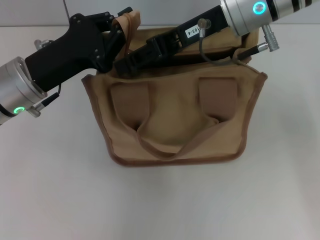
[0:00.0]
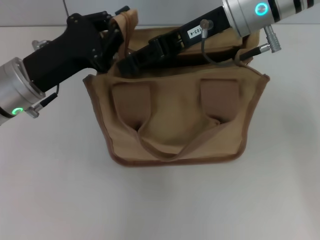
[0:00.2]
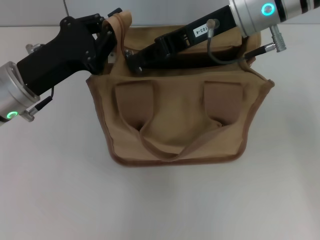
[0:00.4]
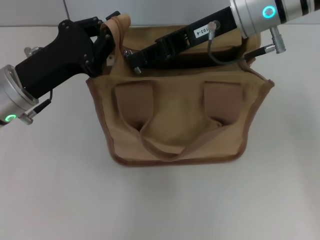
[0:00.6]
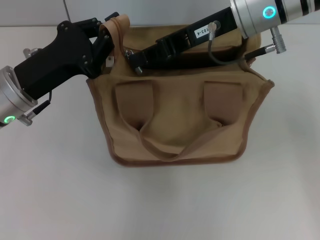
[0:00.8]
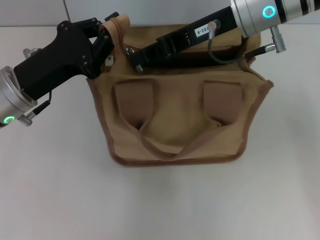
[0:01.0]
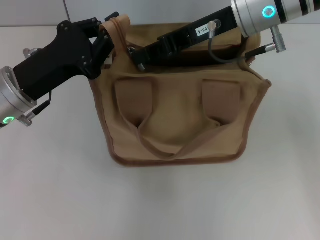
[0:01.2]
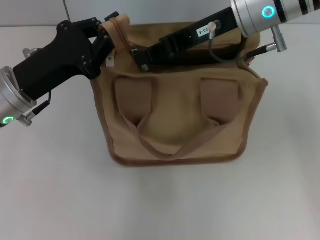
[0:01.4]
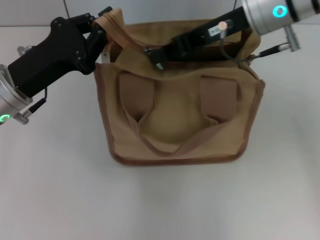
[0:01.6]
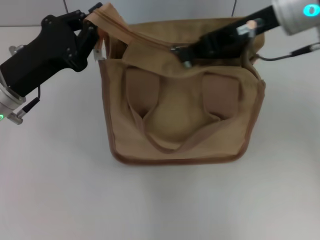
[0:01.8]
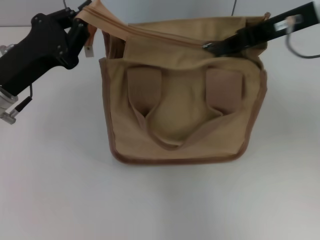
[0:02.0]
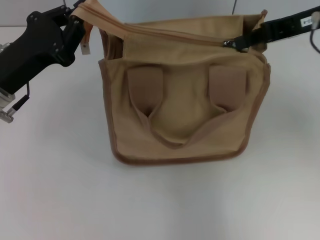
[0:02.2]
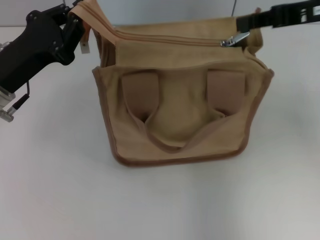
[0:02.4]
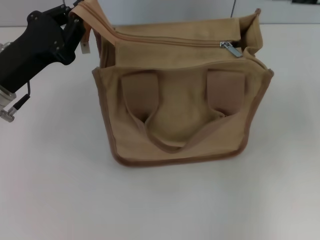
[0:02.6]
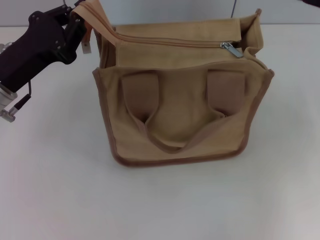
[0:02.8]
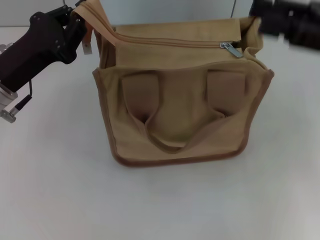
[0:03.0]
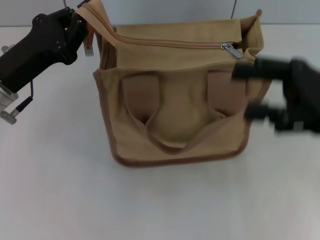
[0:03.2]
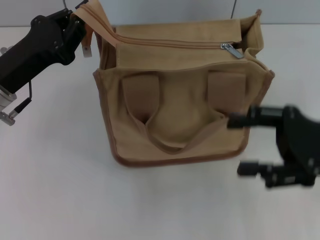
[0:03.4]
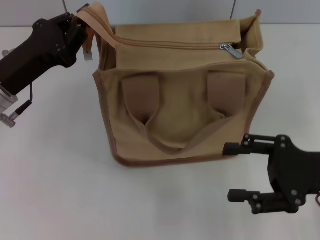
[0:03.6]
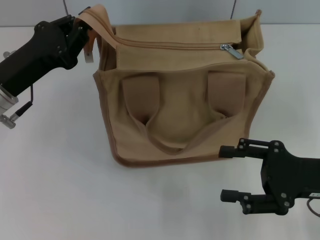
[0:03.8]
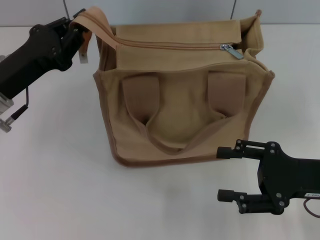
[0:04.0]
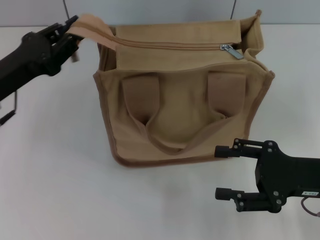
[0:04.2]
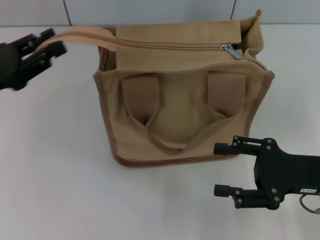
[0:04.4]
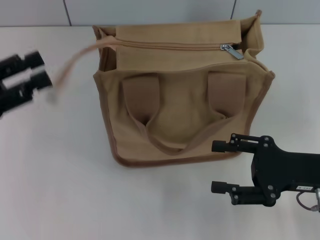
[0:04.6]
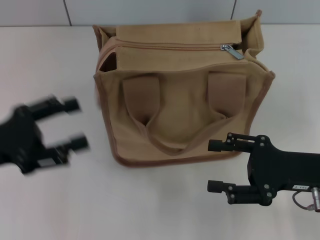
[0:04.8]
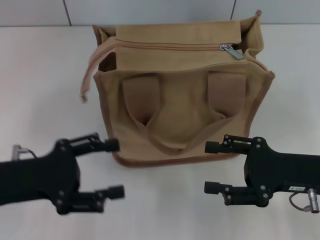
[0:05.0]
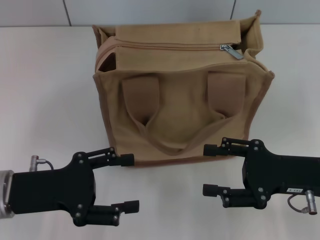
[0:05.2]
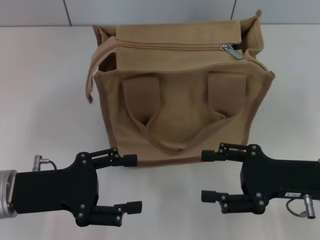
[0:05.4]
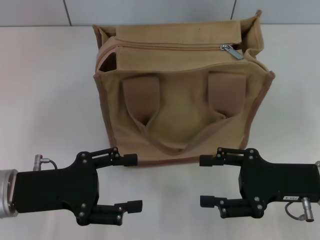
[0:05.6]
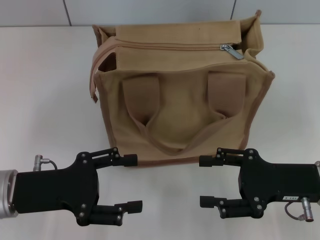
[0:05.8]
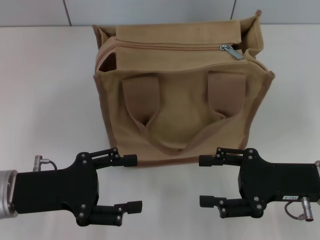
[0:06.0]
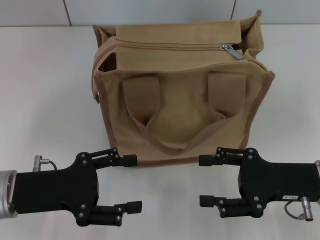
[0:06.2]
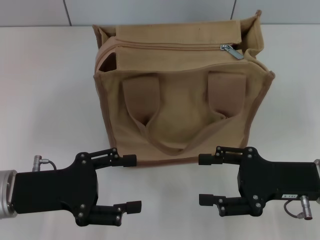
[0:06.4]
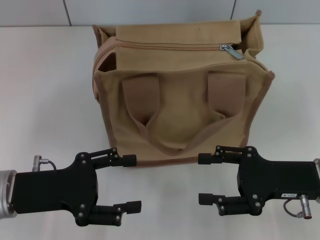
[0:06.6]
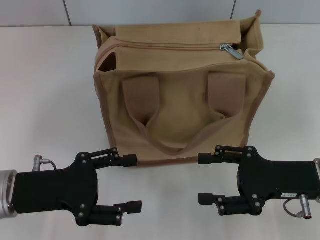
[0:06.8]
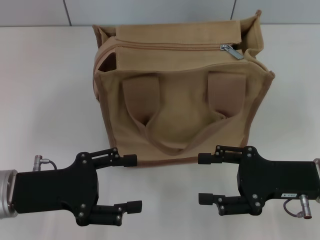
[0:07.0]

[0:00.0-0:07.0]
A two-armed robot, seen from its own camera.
Step, 0:00.0 to 0:02.4: Pull up the zipper with your right hand.
Step, 0:02.6 to 0:04.4: Grab the zipper with your left hand.
0:00.0 to 0:01.4: The right gripper closes.
0:01.4 to 0:02.8: The right gripper goes about 20 cm to the right and backward.
0:02.8 to 0:04.2: The right gripper shifts approximately 20 cm downward and backward, and opens its fingers.
0:04.2 to 0:05.6: The left gripper shifts roughly 10 cm backward, travels to the left and back again, approximately 5 cm each way, and opens its fingers.
0:05.6 to 0:07.0: Both grippers stay put.

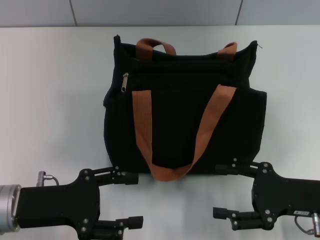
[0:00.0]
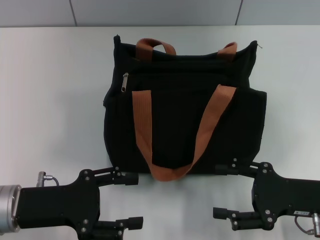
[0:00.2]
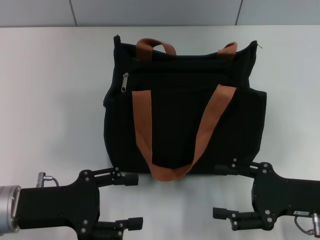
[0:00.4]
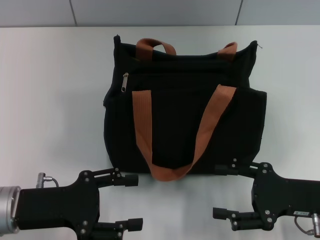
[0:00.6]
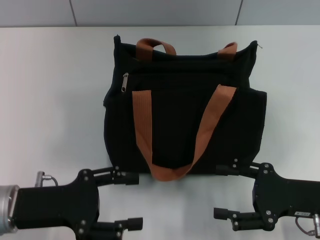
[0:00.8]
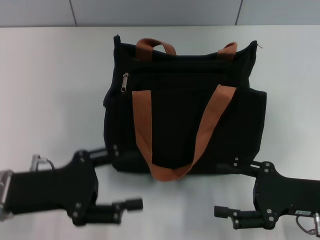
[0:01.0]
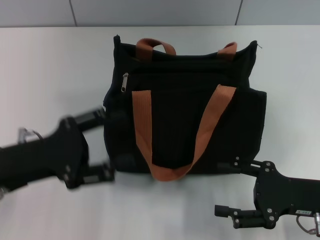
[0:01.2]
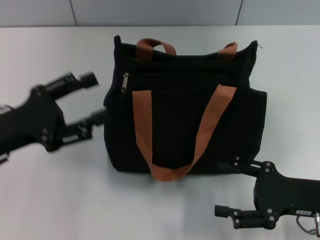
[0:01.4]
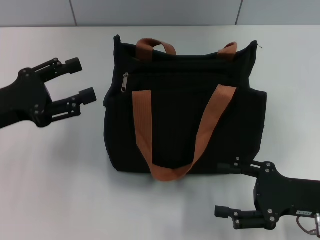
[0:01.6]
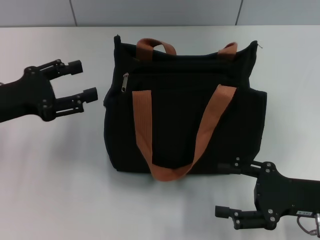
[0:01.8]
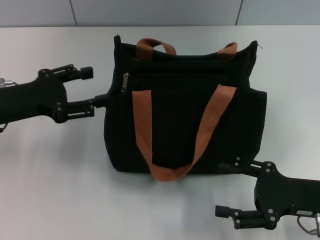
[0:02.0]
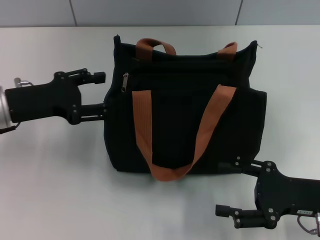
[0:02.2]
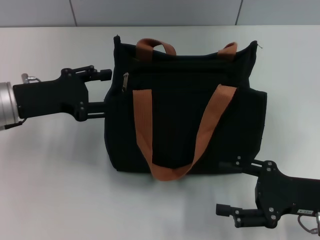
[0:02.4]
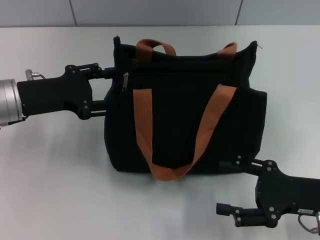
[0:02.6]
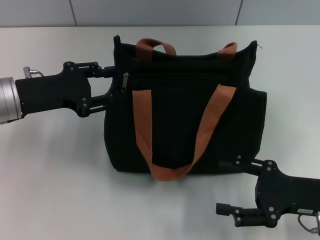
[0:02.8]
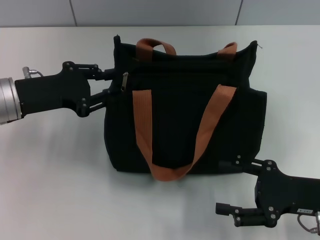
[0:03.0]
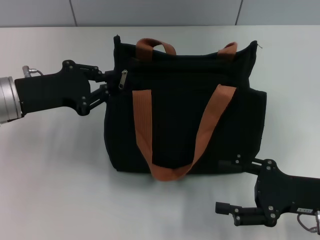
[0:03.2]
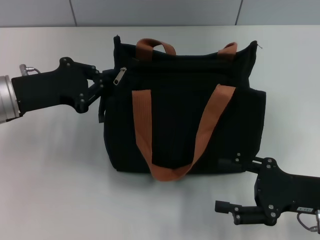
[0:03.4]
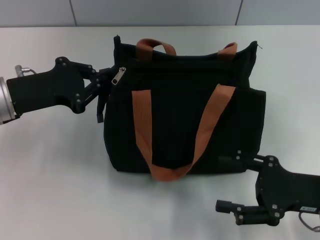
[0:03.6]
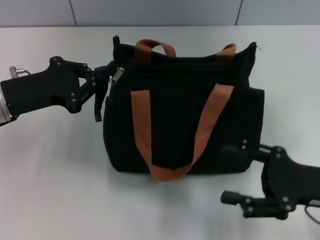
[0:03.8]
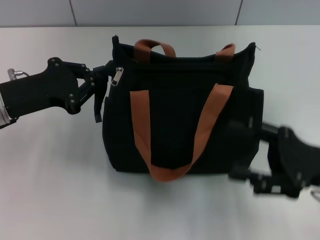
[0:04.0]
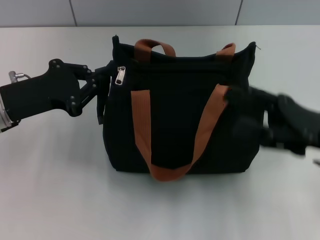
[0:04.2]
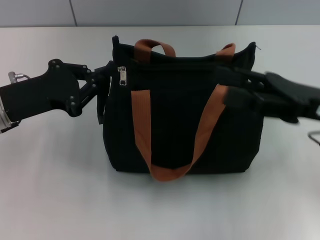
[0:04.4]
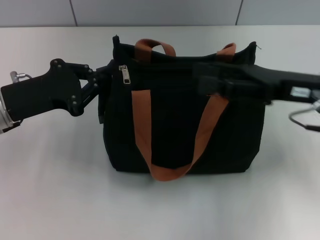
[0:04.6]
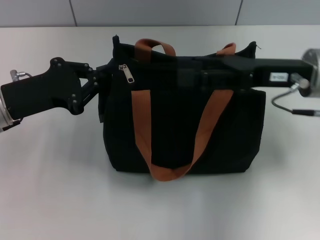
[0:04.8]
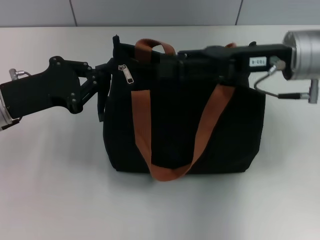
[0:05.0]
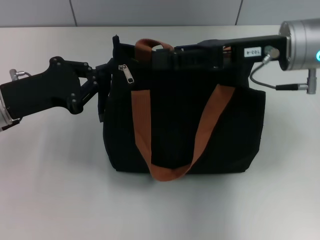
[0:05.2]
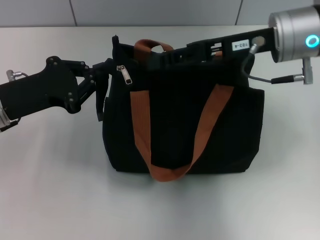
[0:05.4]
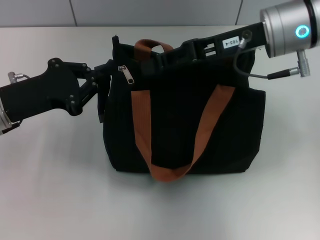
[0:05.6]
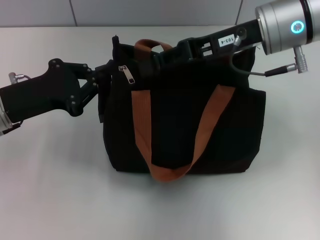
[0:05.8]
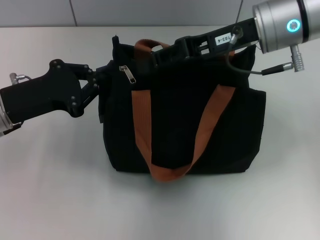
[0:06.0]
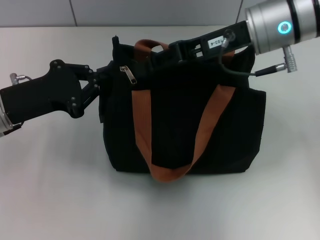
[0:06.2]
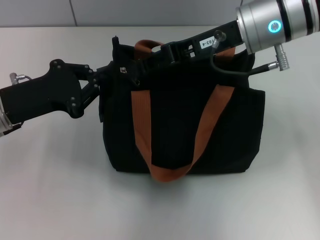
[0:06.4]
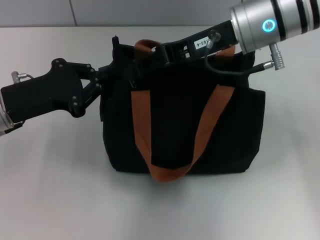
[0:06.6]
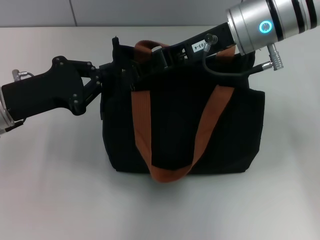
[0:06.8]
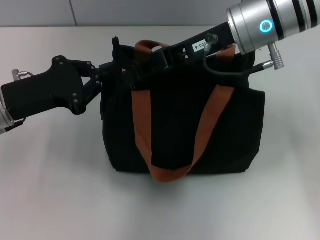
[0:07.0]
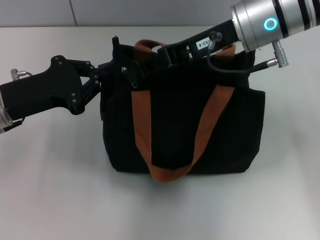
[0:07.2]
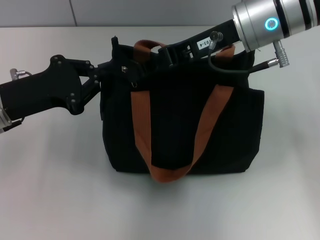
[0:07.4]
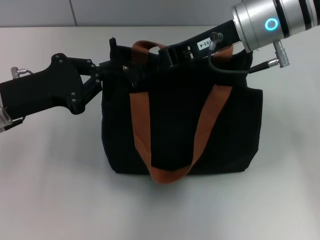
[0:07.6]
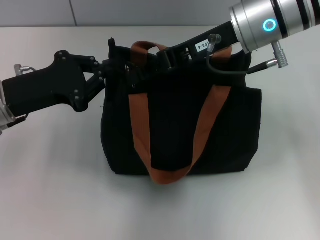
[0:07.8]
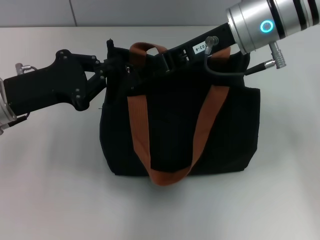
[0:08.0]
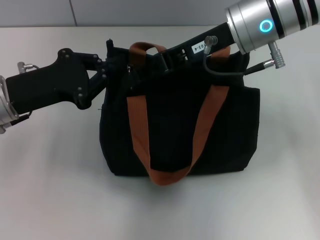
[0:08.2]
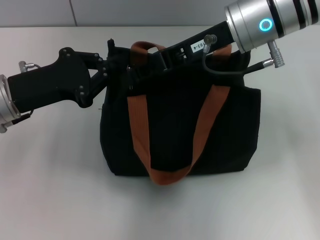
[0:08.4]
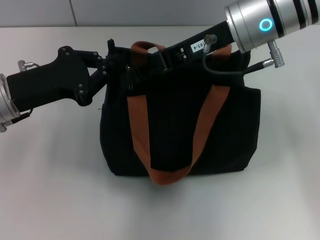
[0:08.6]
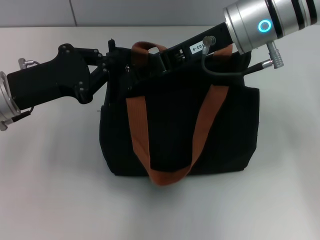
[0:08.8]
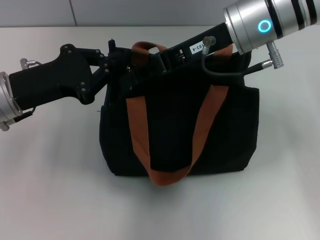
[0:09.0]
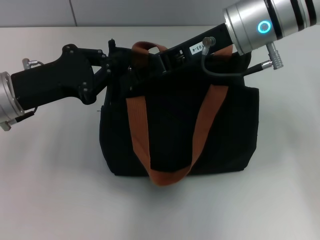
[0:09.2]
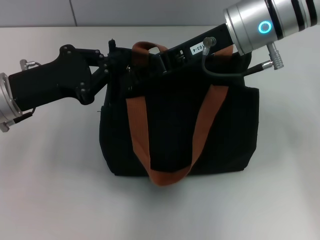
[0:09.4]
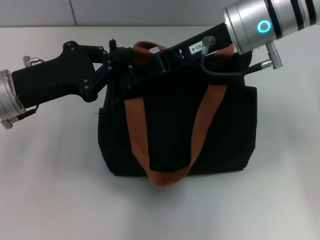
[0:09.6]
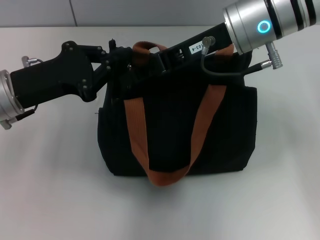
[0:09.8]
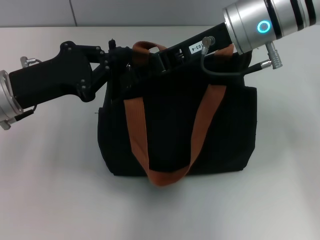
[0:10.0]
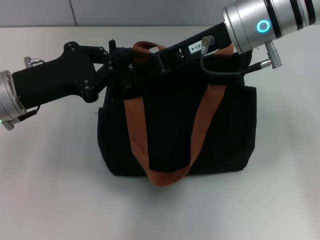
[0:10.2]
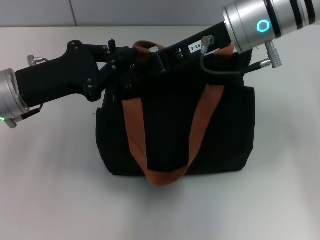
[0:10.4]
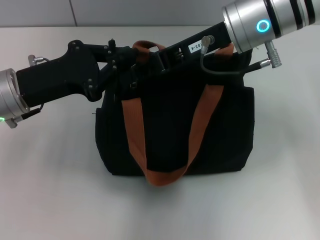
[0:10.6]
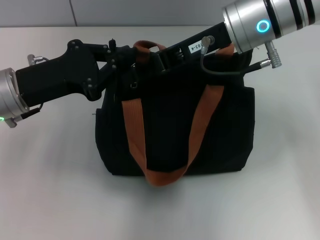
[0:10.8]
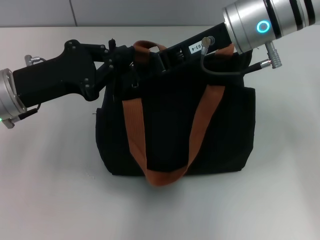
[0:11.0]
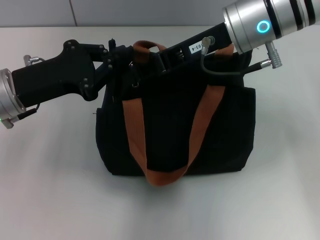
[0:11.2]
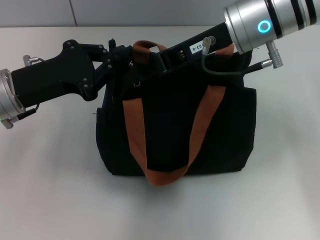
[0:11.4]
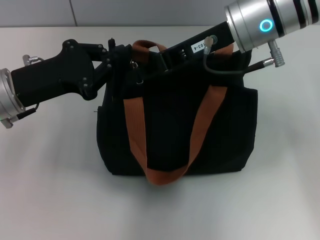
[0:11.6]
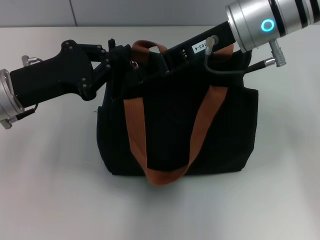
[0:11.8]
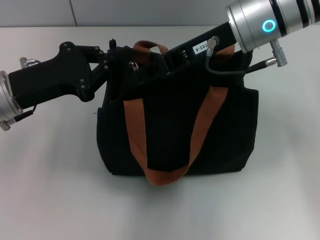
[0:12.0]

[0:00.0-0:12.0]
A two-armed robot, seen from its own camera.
0:00.0 to 0:01.6: The left gripper goes some 10 cm forward and upward.
0:01.6 to 0:03.0: The left gripper heads forward, covering about 5 cm.
0:03.0 to 0:04.4: The left gripper closes its fingers, while the right gripper travels upward and forward by roughly 10 cm.
0:04.4 to 0:06.0: The right gripper heads to the left, forward and upward, covering about 15 cm, and closes its fingers.
0:06.0 to 0:09.0: There are only small adjustments of the grippers.
0:09.0 to 0:12.0: Both grippers stay about where they are.

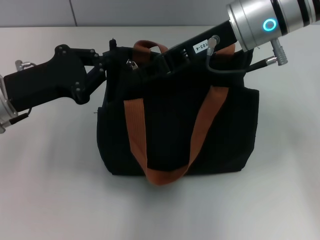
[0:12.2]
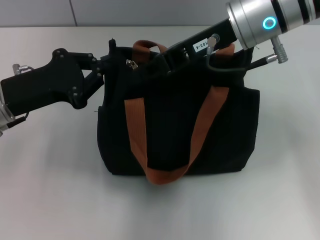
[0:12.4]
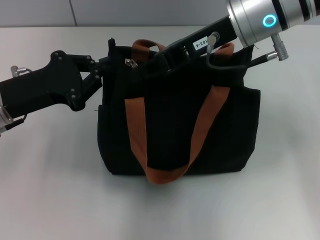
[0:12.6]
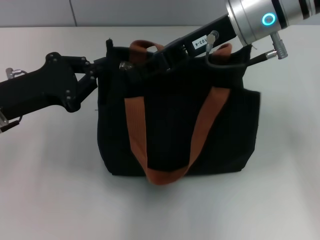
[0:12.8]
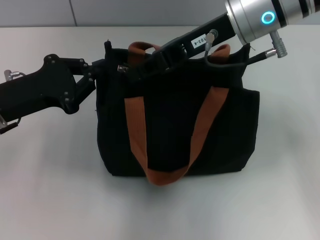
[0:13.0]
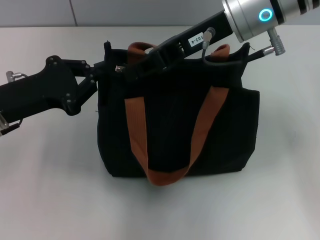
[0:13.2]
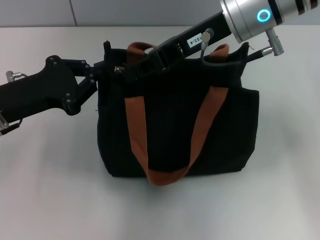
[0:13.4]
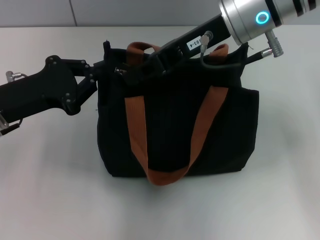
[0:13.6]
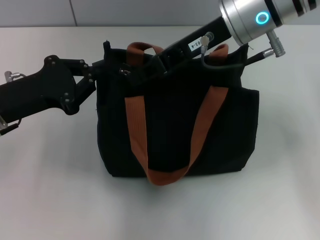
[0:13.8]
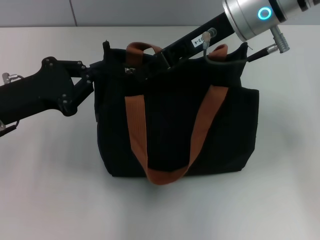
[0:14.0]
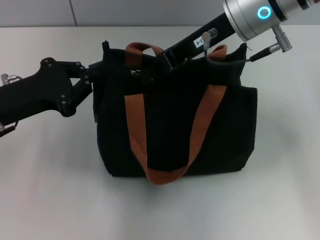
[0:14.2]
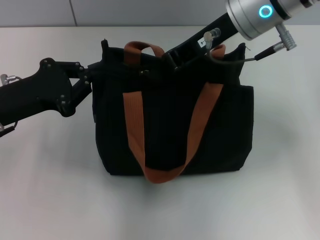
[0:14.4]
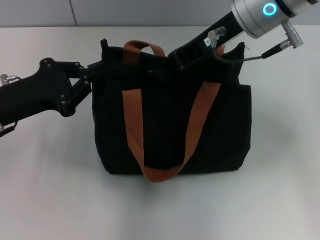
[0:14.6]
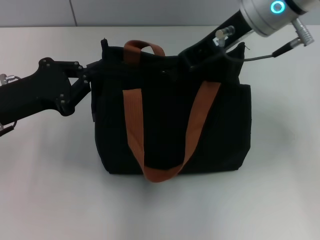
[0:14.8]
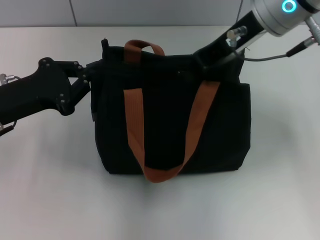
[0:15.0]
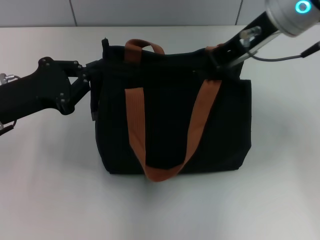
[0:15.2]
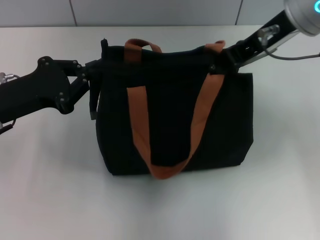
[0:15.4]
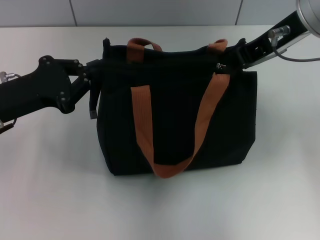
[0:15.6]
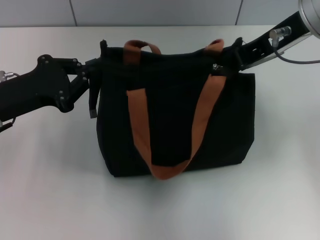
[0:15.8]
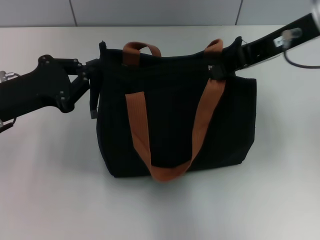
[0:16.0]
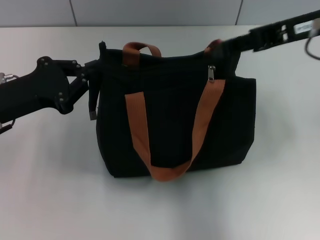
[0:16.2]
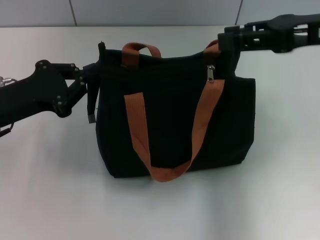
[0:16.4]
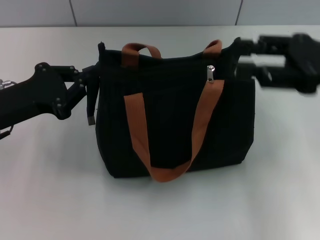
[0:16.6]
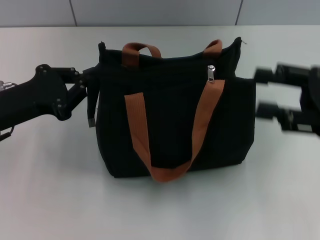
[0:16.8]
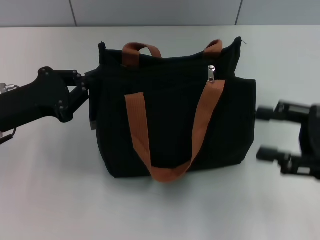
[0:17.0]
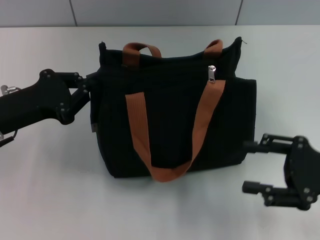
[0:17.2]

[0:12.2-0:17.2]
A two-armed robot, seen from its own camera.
Step, 0:12.2 to 0:16.0: Pull up the zipper with your right hand.
0:12.2 to 0:13.8: The grippers make only small movements.
0:13.8 to 0:15.6: The right gripper goes some 5 cm to the right.
0:15.6 to 0:17.2: The right gripper is displaced downward, backward and to the right by approximately 25 cm, and opens its fingers.
